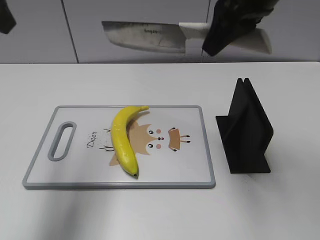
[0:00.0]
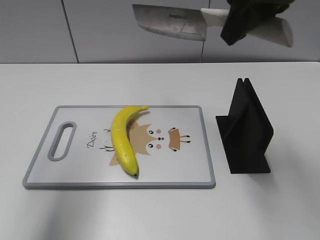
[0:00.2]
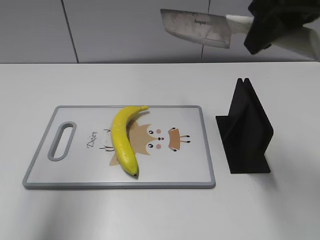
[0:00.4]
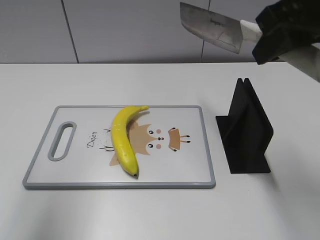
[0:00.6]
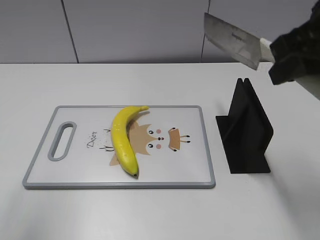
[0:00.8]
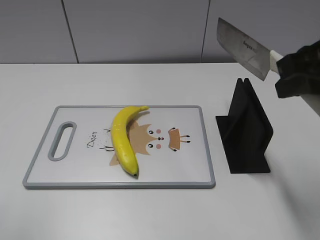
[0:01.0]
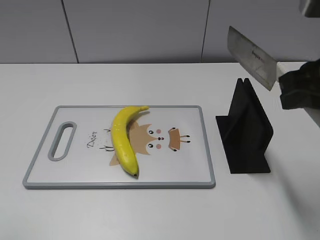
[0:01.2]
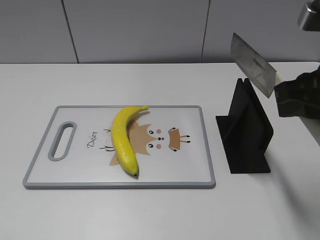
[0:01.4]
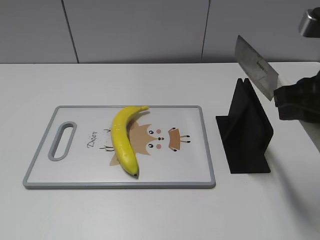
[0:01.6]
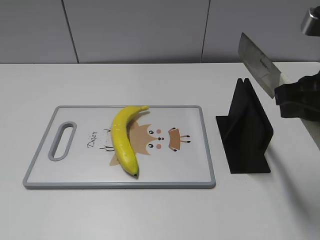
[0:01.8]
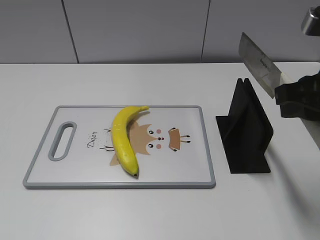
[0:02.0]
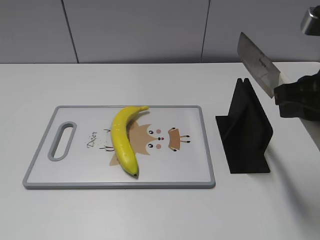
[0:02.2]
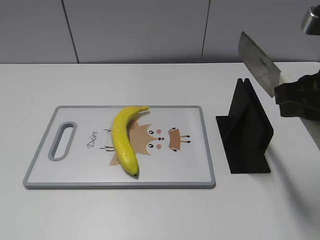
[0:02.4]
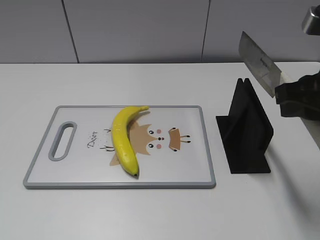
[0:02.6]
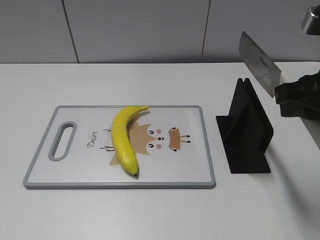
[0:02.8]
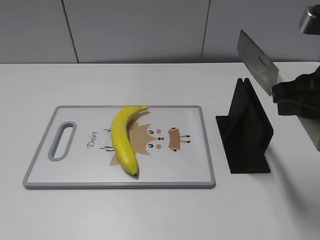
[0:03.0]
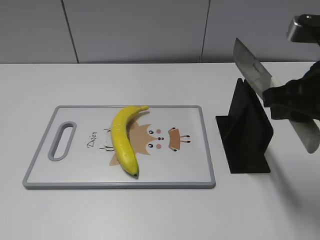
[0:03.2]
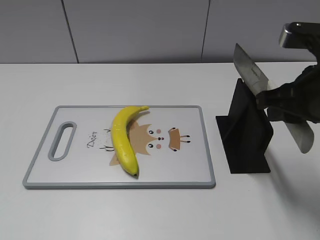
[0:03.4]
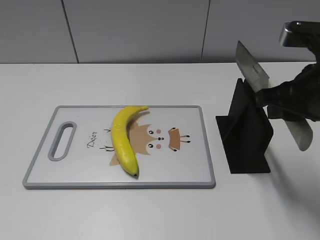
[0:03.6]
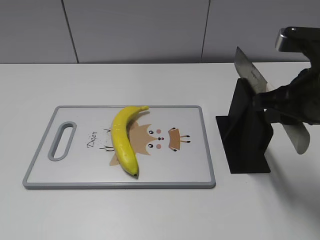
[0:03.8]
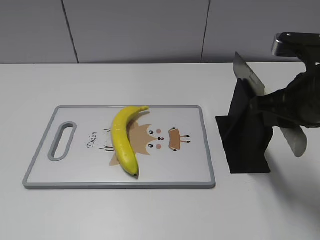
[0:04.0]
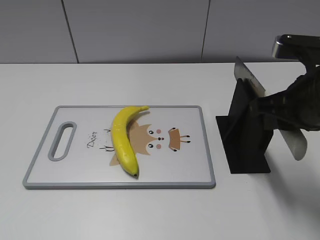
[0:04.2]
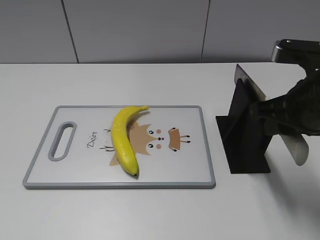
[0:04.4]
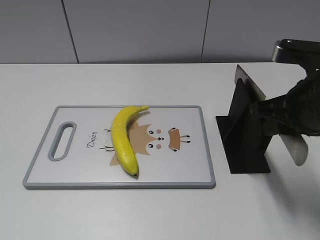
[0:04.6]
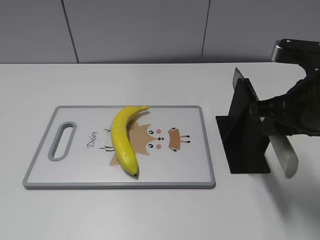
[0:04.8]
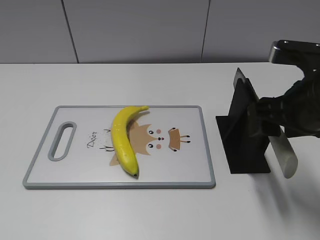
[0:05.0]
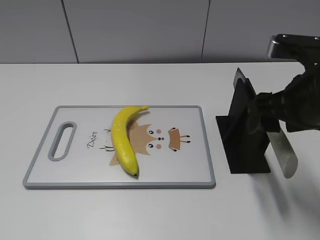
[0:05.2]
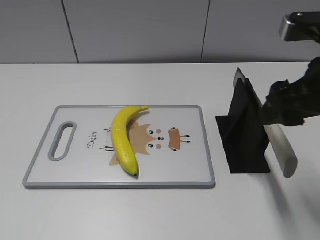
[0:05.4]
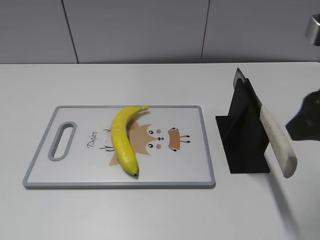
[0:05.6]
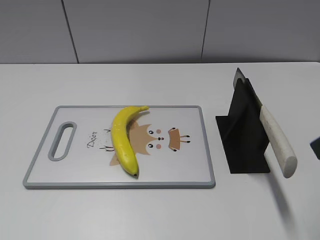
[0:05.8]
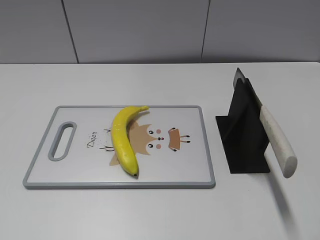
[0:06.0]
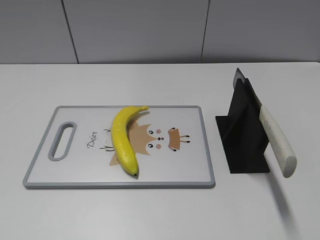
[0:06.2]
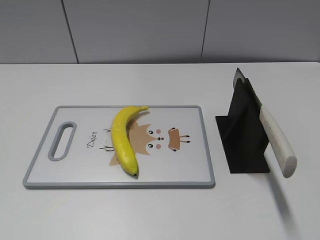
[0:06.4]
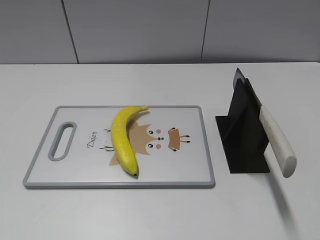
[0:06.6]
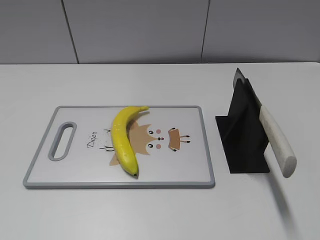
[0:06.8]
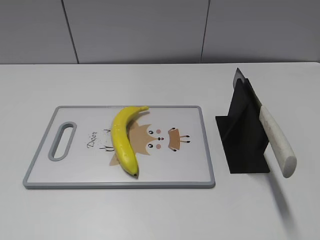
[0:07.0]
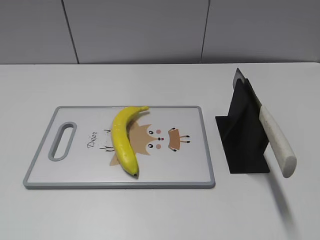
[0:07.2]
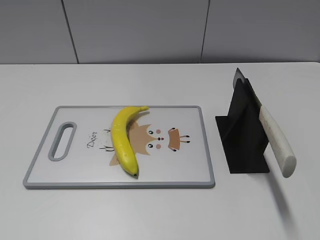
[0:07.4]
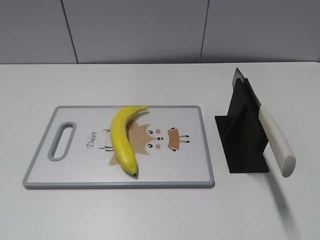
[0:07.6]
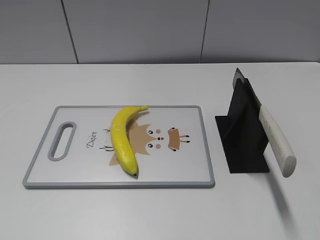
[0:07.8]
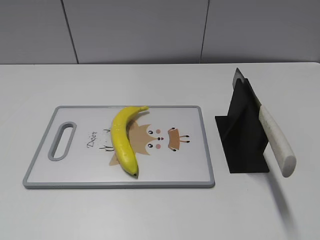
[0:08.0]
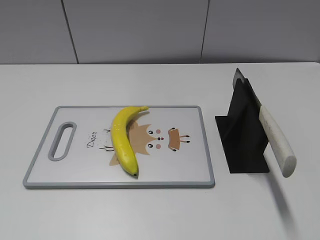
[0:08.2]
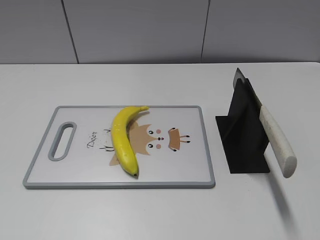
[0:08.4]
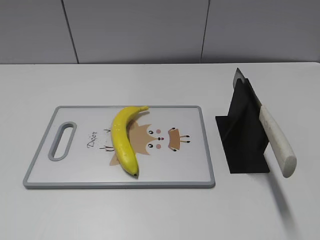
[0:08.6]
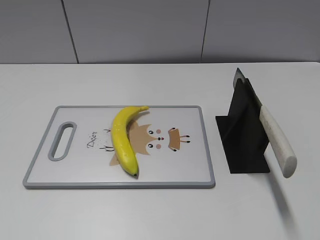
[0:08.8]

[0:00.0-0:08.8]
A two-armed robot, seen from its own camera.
Task of the whole recording: cut plastic banana.
Step, 0.6 to 1.4 s: Secure the blade with your left hand.
Step, 1.6 to 8.8 s: Place the knife on the storage rack with your right hand.
0.0 to 1.4 s: The right gripper heads backward, to the right and downward, covering approximately 15 cm, while the left gripper is displaced backward and to the left by about 20 cm.
3.0 to 4.4 s: The grippers move only a little.
4.4 to 5.8 s: The right gripper heads backward and upward, covering roughly 10 cm, and opens up.

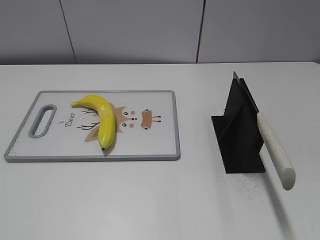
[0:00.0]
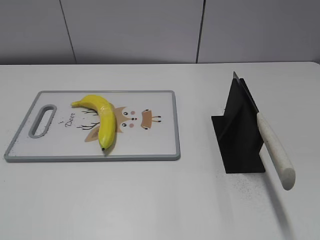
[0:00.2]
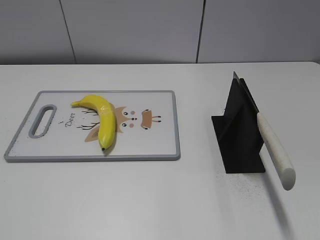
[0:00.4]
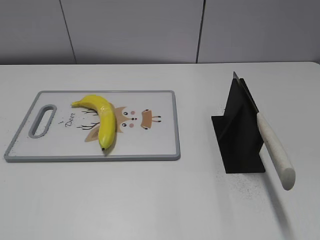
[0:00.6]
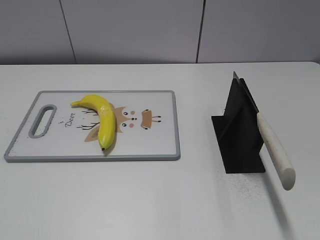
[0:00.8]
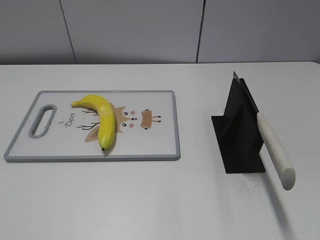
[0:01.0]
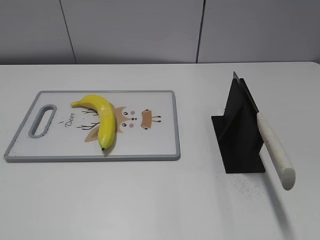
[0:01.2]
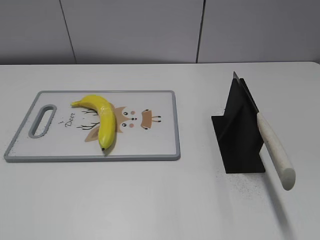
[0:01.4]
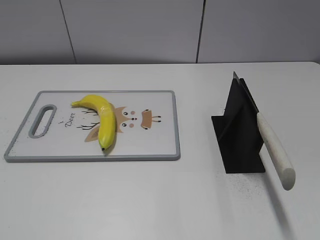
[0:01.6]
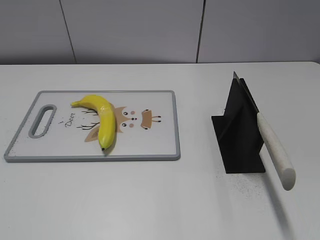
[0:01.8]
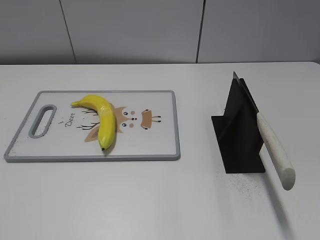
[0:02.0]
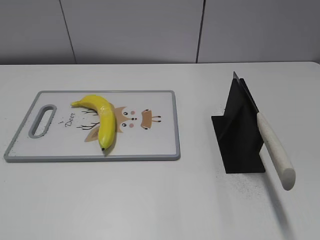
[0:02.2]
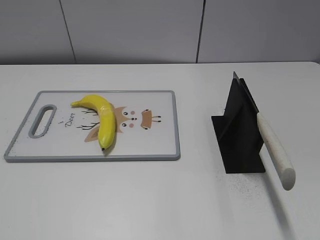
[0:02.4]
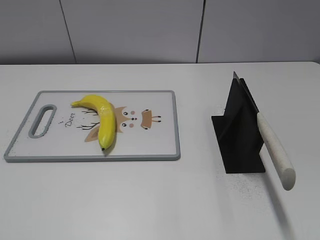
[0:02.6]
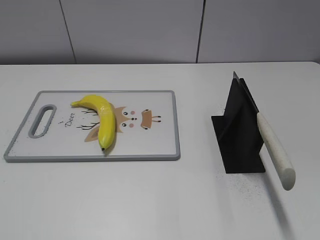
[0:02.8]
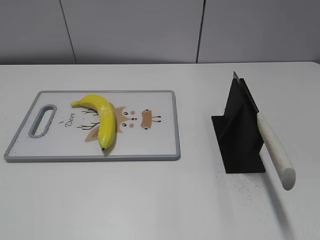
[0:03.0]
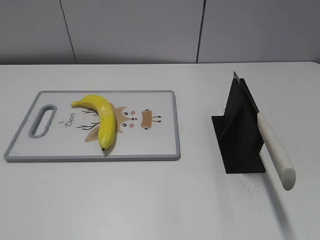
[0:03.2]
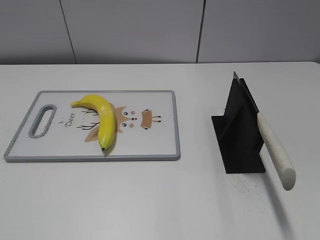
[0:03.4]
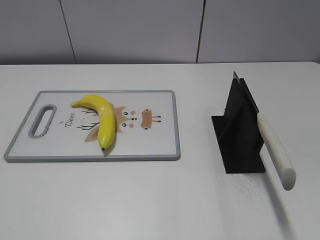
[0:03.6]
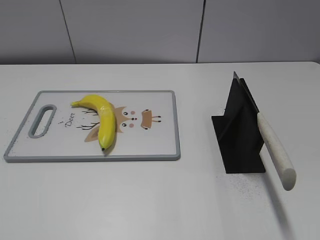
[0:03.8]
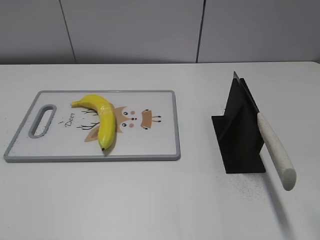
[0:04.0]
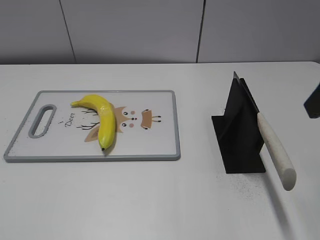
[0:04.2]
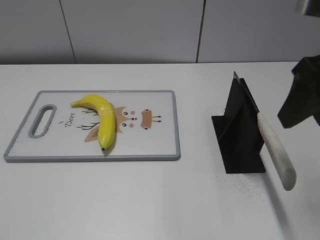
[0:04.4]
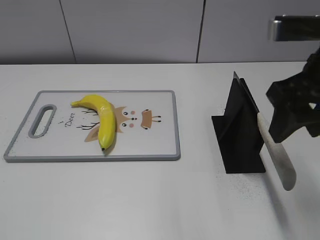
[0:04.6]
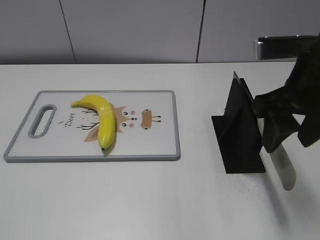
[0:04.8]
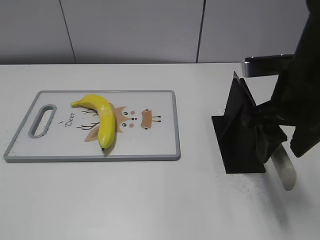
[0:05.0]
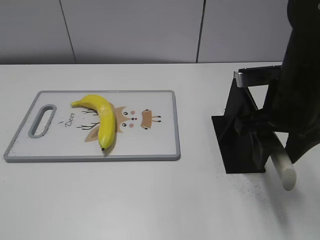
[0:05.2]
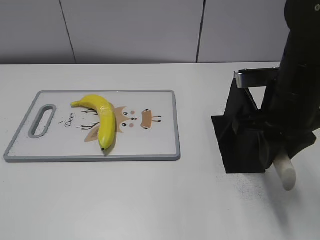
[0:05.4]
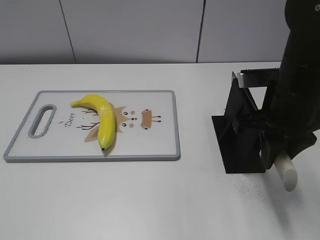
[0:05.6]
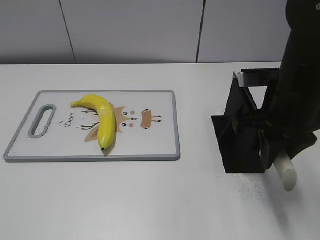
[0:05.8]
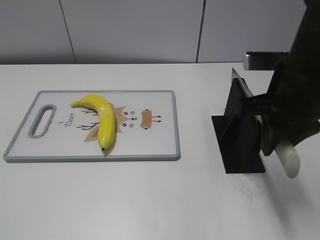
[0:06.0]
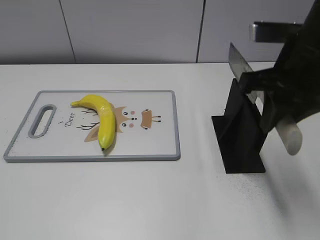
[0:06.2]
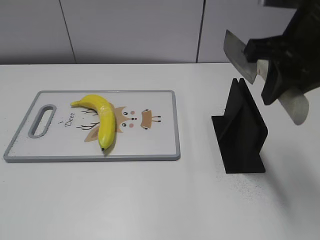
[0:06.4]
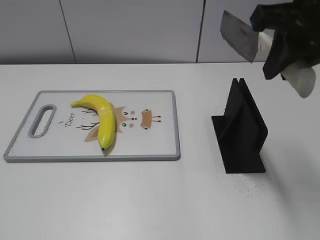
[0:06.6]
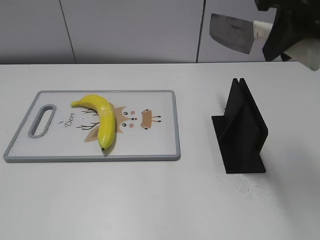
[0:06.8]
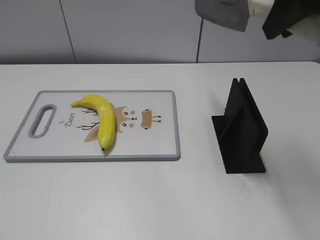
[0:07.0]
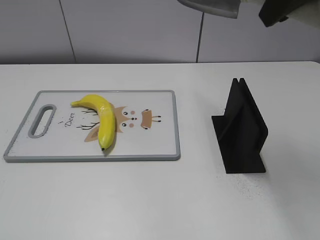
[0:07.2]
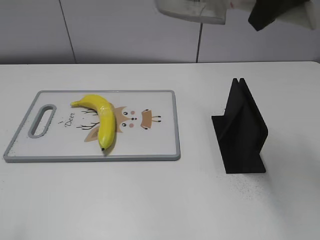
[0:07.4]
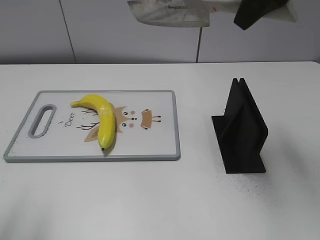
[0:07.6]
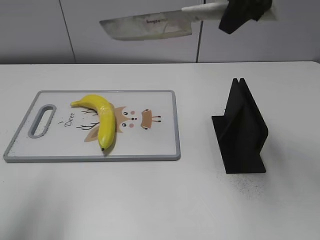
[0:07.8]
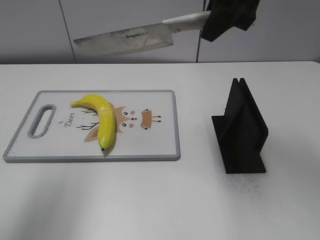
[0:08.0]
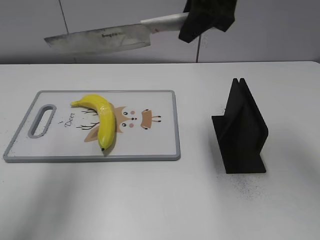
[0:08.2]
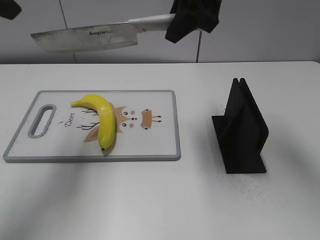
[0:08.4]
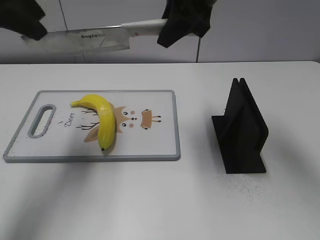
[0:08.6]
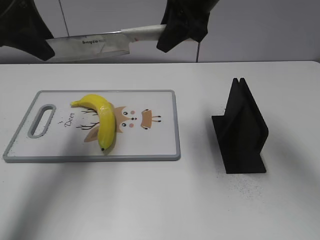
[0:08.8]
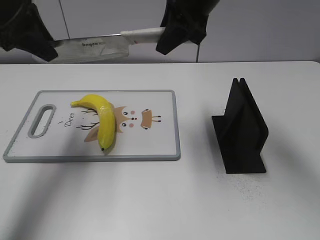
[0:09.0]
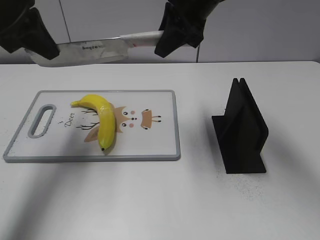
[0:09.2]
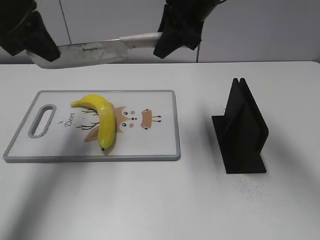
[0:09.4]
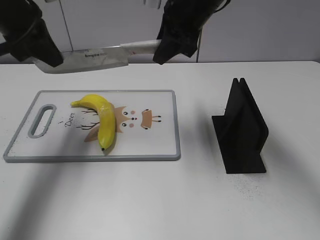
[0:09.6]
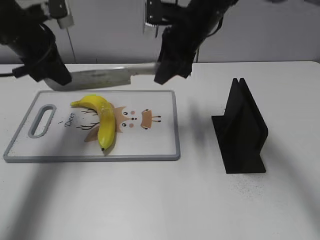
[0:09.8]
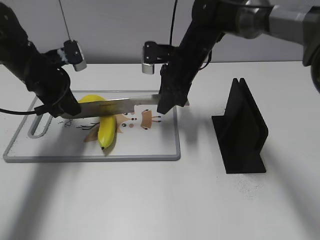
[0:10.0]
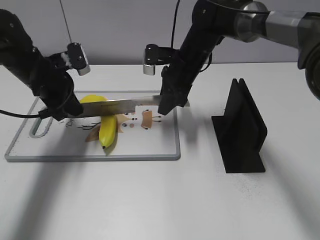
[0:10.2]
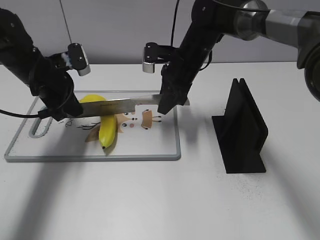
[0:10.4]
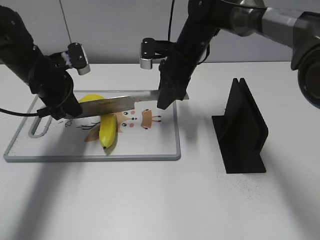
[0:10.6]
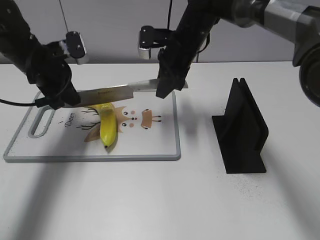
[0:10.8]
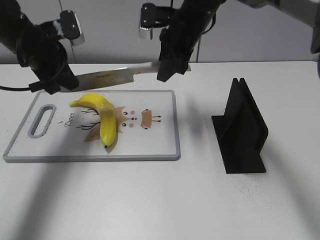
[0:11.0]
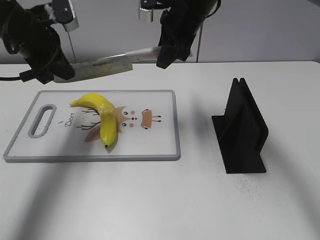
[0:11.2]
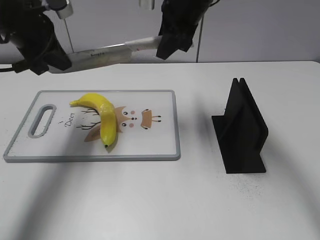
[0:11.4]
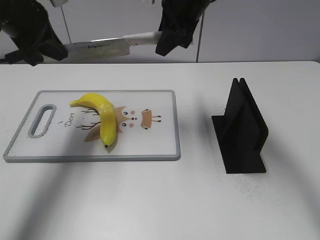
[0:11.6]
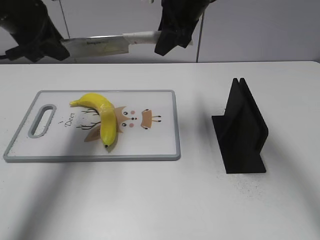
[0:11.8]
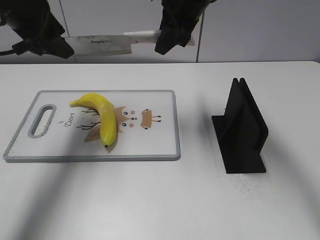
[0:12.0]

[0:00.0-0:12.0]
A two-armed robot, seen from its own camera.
Task of the whole recording: cut plastic banana.
Step, 0.0 to 6.8 s: Grab the knife handle with your right hand.
Step, 7.0 to 11.2 s: Hold the blade with your left hand.
3.0 to 4.4 s: The right gripper moves forward, approximately 20 cm.
4.4 to 6.0 s: The right gripper heads downward, covering about 10 cm, and closes its fingers.
6.0 to 7.6 s: The left gripper is displaced forward and upward by some 15 cm. Meanwhile the right gripper shifts roughly 15 cm upward.
7.6 to 9.0 s: The right gripper travels forward, downward and to the left by some 15 cm. Meanwhile the left gripper moves forward, approximately 25 cm, and closes up.
9.0 to 10.4 s: The grippers both shift downward by about 15 cm. The left gripper closes up.
10.4 to 12.0 s: Both grippers travel together upward, about 15 cm. The left gripper opens.

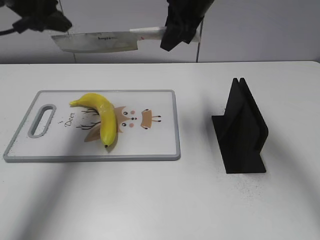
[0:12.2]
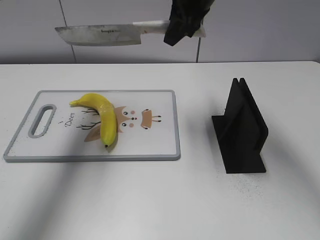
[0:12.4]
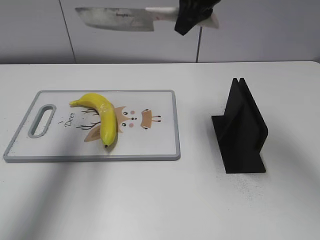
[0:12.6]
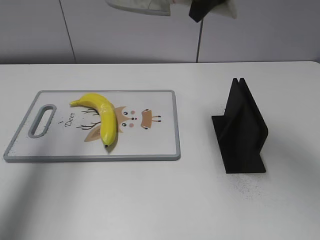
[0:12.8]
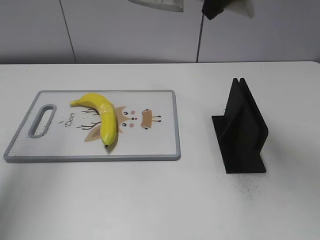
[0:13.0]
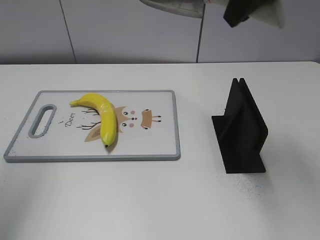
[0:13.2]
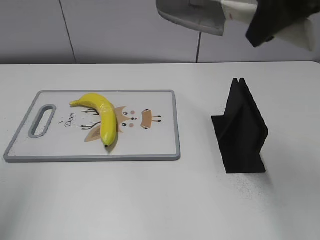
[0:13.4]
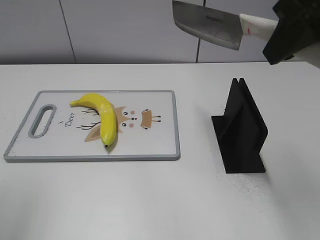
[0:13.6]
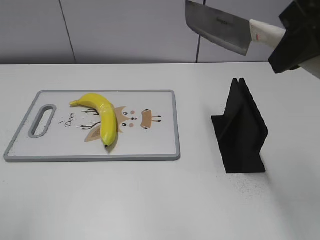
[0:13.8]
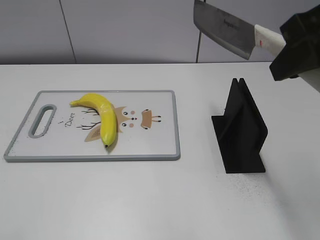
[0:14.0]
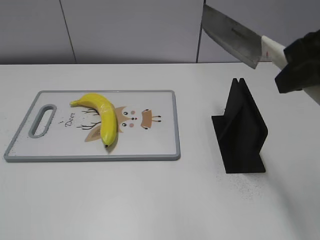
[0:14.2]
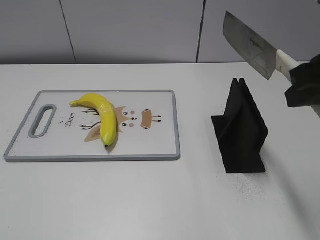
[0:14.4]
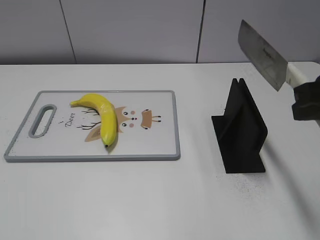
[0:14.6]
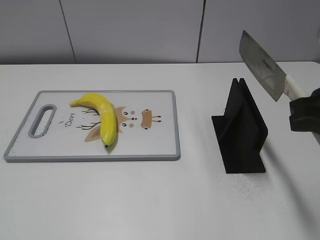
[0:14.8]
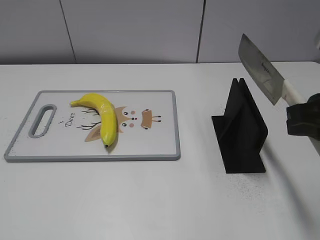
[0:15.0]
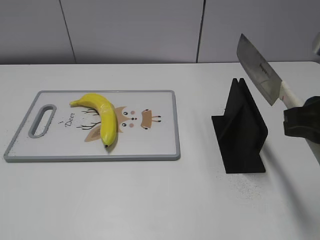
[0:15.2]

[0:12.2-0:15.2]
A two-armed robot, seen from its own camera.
Task of the whole recording: cut plastic banana.
Step, 13.2 to 14.6 s: Secure the blade with your left hand.
12.2 to 13.8 s: The right gripper moves backward and to the right, some 25 cm. Meanwhile the left gripper travels backward by roughly 25 cm.
13.8 to 15.2 s: The left gripper goes approximately 20 cm downward and backward; the right gripper heads downward, covering some 10 cm.
